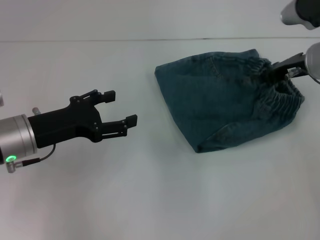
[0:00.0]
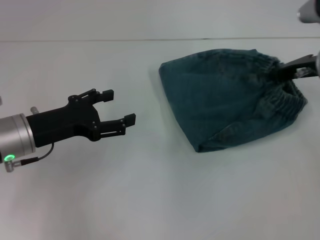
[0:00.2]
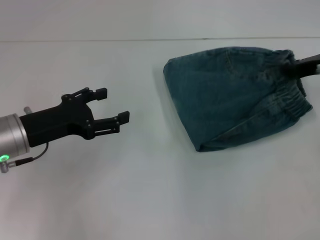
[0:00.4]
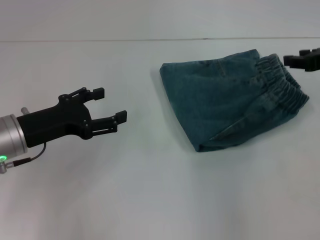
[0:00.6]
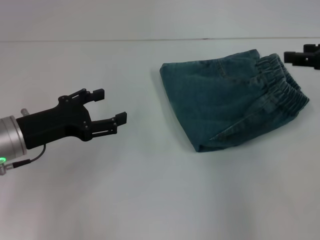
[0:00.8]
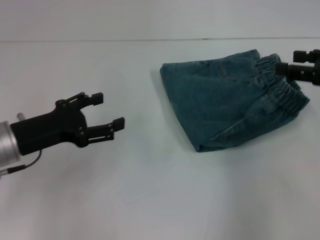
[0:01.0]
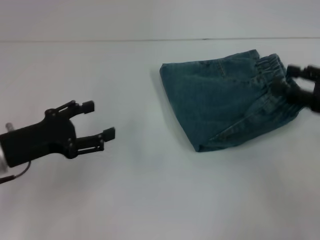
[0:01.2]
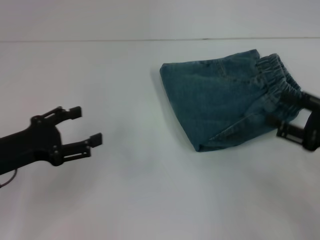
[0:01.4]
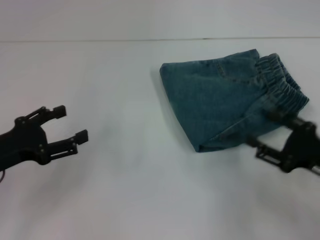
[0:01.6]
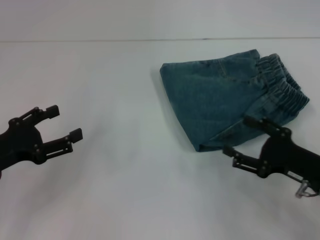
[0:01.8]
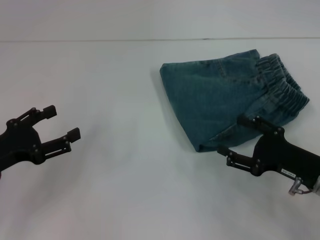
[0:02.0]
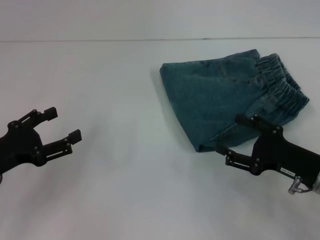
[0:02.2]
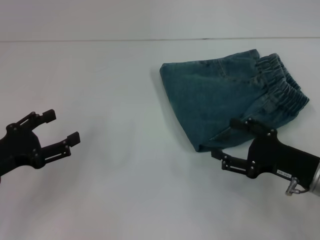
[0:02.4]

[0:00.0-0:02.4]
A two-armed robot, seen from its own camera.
0.0 to 1.2 s: The right gripper travels backward and to the right by roughly 15 cm, and opens up.
1.2 to 2.4 s: The left gripper changes place by roughly 5 cm; the right gripper goes about 15 cm downward and to the left.

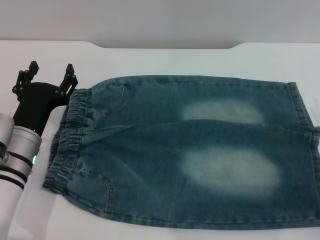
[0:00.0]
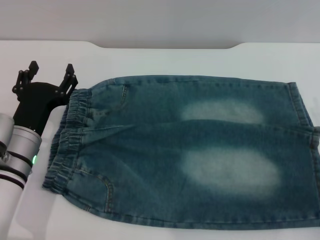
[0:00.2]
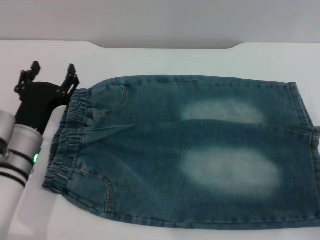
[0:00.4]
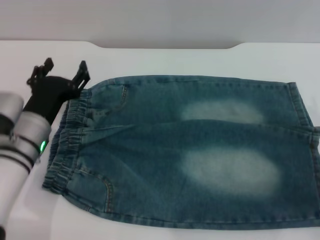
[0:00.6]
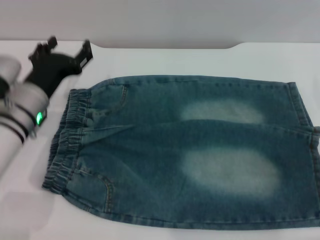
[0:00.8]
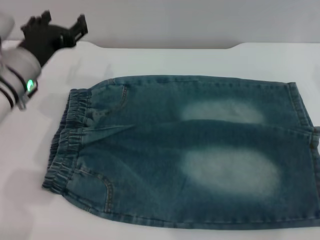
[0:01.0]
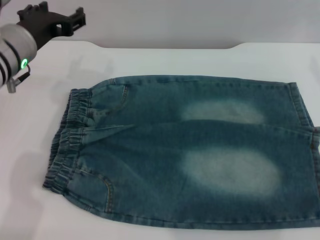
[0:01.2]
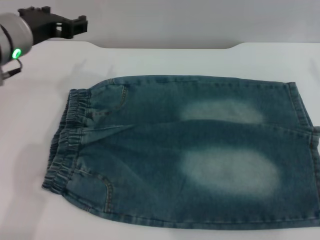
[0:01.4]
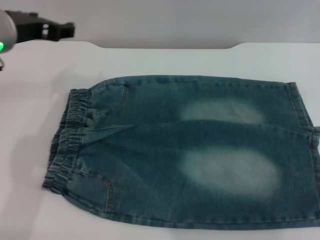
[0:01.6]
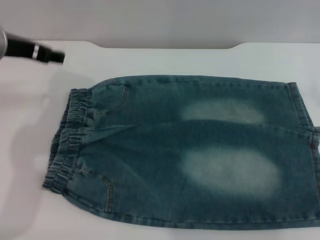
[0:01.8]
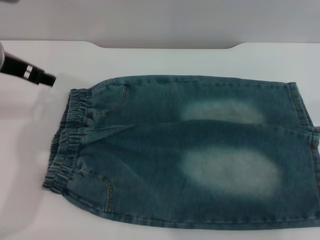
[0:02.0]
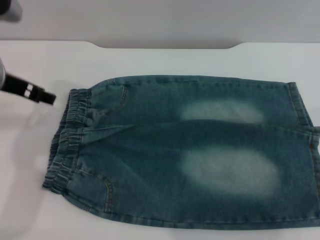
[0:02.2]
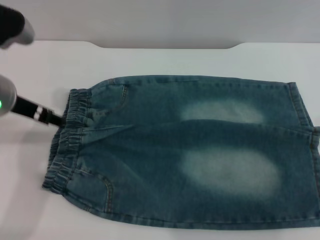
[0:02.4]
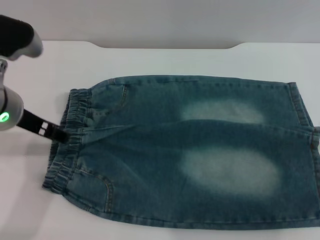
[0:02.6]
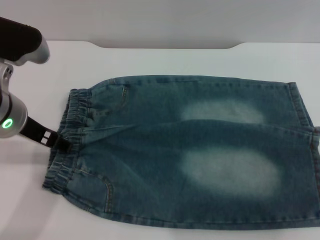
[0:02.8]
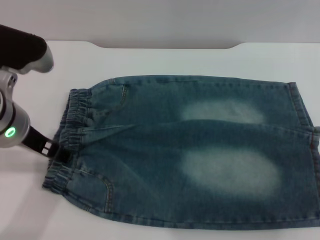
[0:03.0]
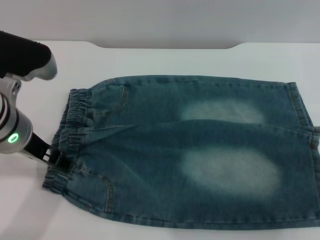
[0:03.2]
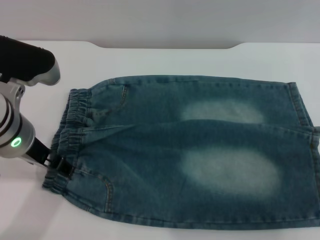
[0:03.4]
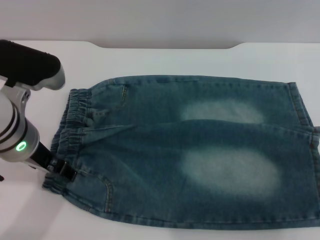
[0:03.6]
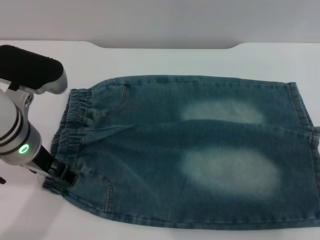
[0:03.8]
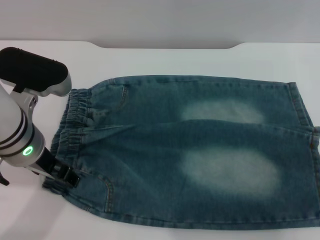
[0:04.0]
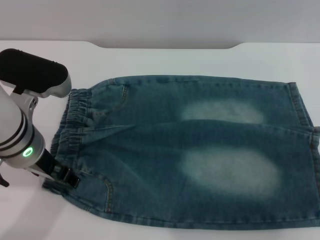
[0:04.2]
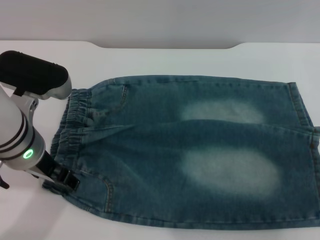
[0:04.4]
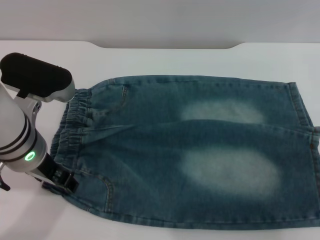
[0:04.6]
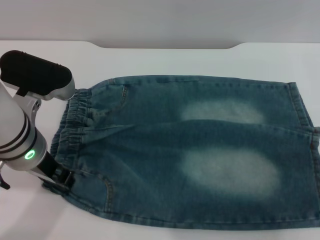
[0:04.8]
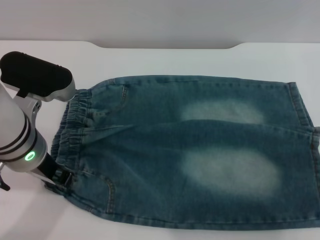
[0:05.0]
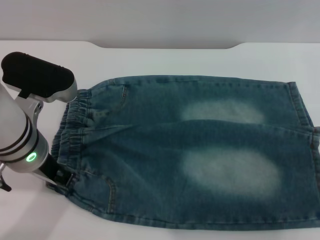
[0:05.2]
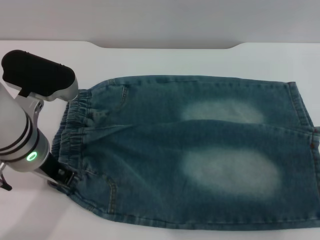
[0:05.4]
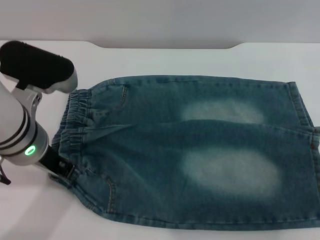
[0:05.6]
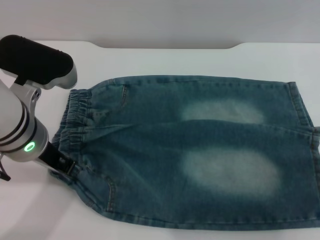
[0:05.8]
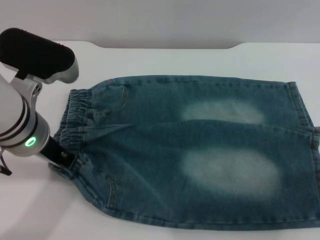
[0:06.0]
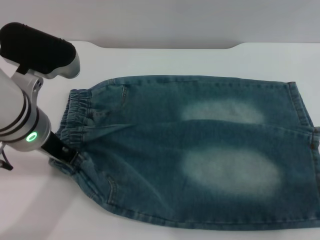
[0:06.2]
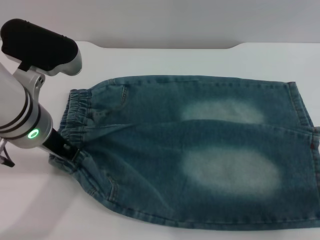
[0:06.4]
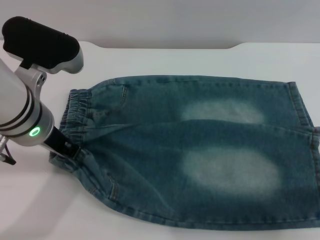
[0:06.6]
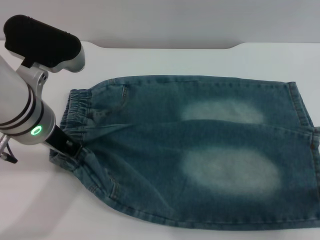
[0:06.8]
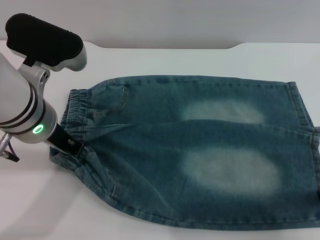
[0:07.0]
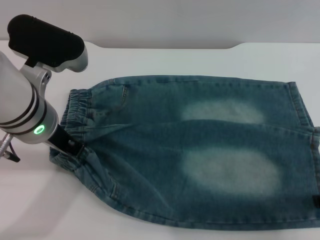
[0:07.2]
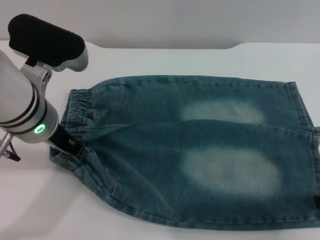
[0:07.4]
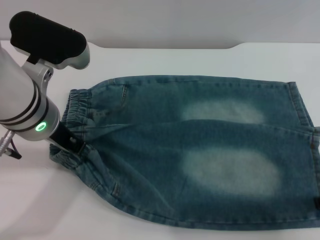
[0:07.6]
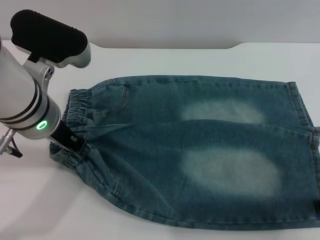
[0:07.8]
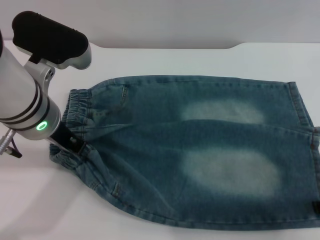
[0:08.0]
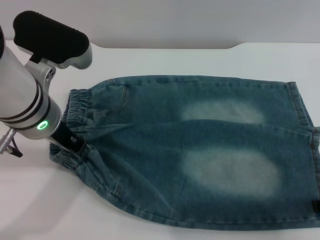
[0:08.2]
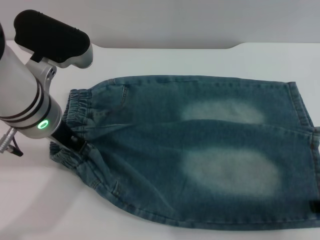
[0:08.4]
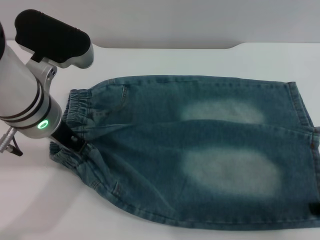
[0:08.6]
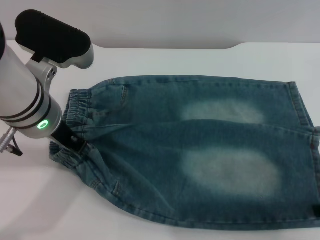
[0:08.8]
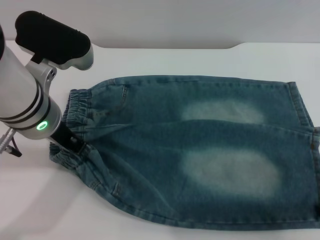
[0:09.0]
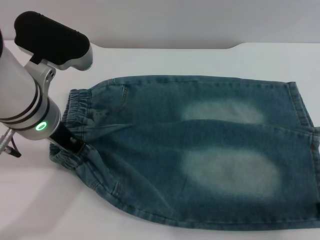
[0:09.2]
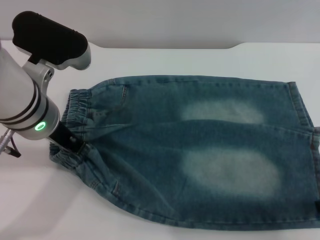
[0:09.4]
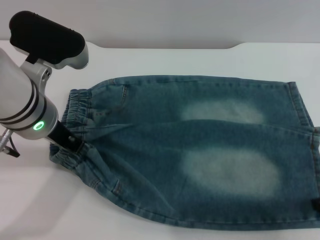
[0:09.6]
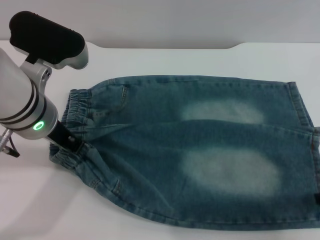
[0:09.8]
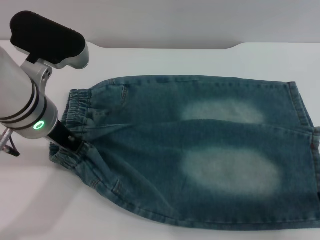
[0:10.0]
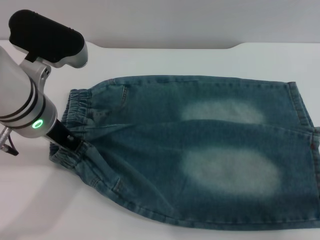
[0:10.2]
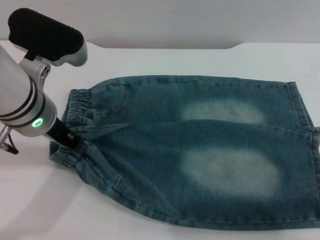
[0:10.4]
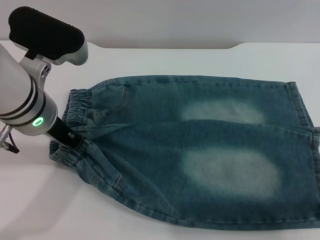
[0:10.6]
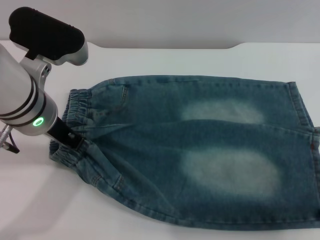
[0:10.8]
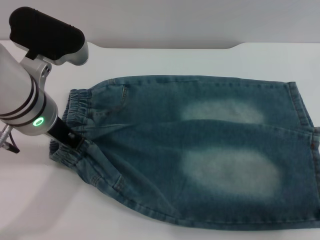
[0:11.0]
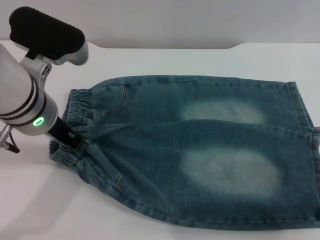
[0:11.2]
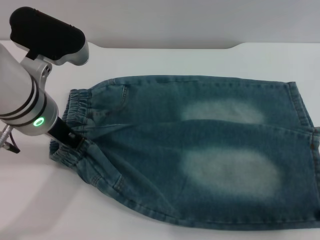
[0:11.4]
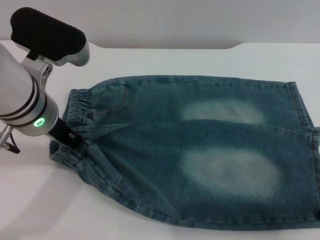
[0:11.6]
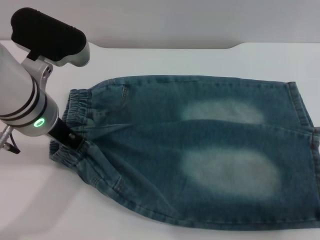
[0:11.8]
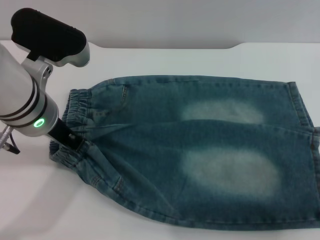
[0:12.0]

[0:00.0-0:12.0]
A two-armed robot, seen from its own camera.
0.0 to 1.6 s: The left gripper travels upward and forward by some 20 cm.
1.6 to 3.0 s: The left gripper shifts about 5 cm backward.
3.0 to 4.4 s: The grippers make only small movements.
4.4 to 6.0 s: The left gripper closes.
6.0 to 9.0 s: The grippers stay close to where they were, moving slightly.
9.0 to 10.4 s: The right gripper closes, then reopens.
10.4 to 12.0 s: There are only small adjustments of the grippers.

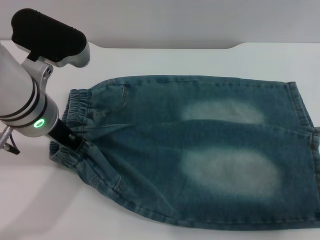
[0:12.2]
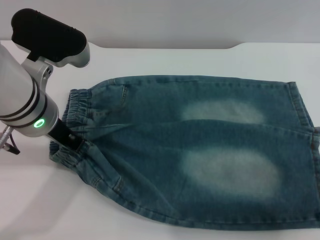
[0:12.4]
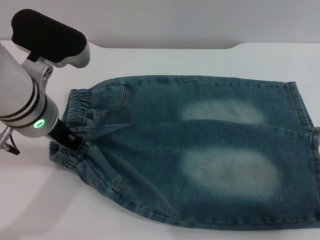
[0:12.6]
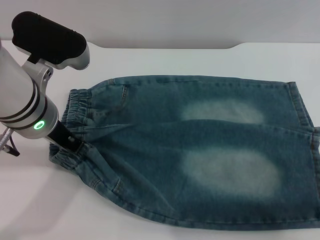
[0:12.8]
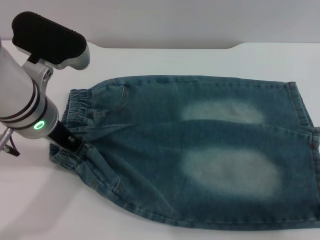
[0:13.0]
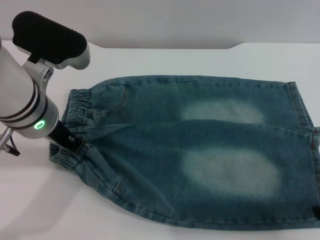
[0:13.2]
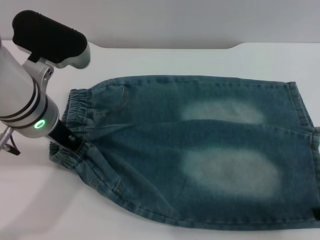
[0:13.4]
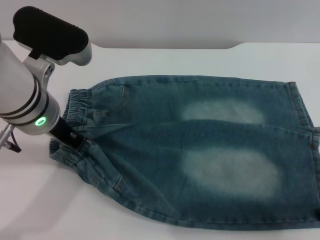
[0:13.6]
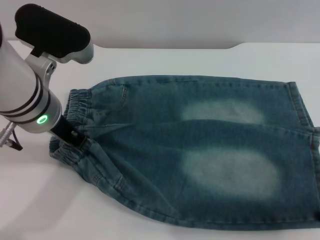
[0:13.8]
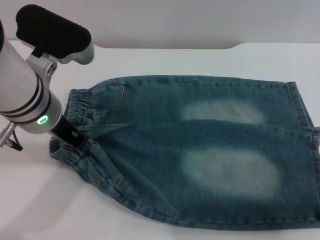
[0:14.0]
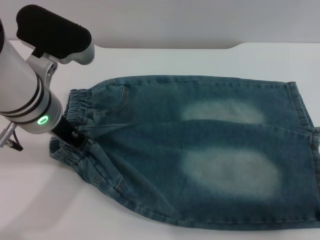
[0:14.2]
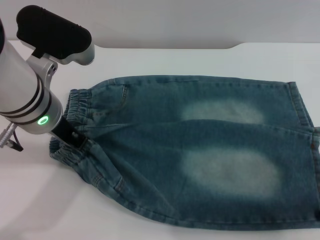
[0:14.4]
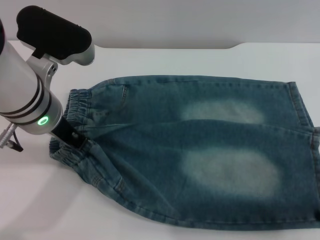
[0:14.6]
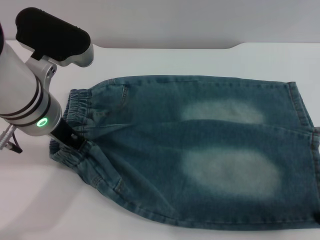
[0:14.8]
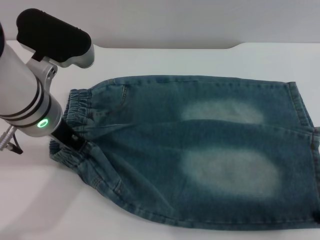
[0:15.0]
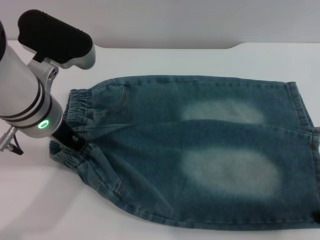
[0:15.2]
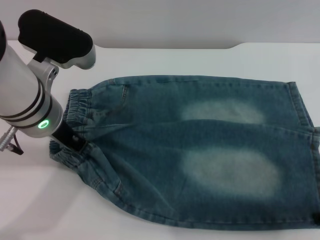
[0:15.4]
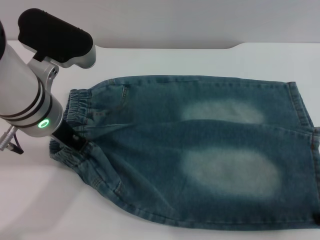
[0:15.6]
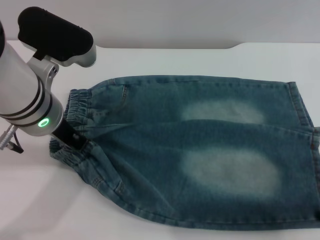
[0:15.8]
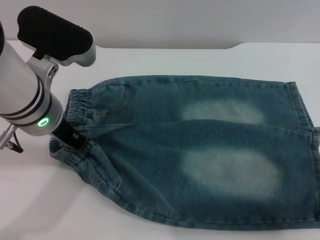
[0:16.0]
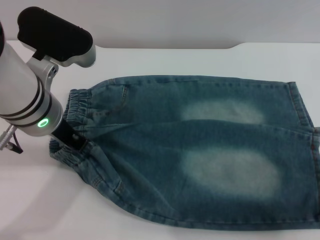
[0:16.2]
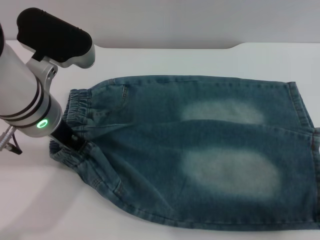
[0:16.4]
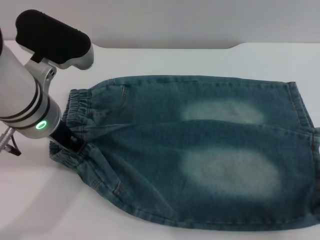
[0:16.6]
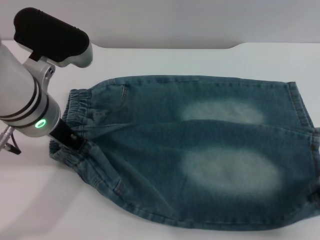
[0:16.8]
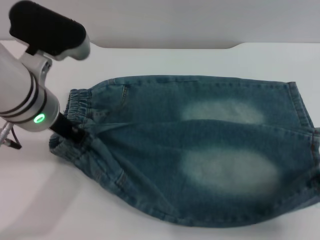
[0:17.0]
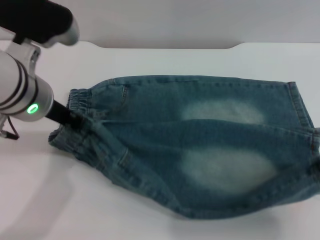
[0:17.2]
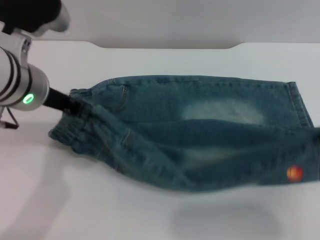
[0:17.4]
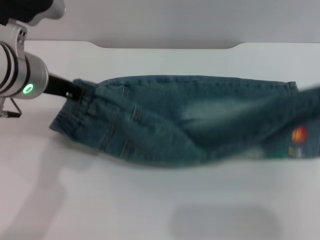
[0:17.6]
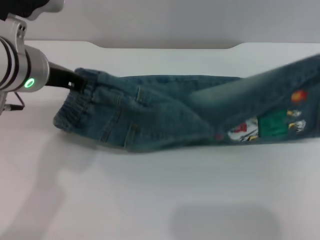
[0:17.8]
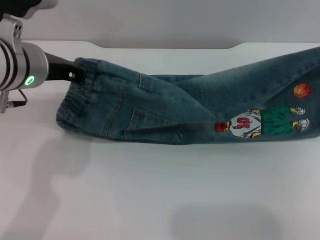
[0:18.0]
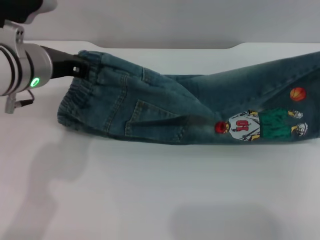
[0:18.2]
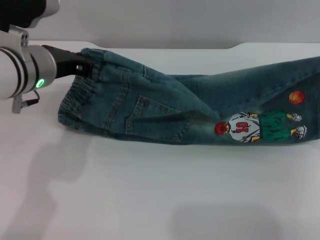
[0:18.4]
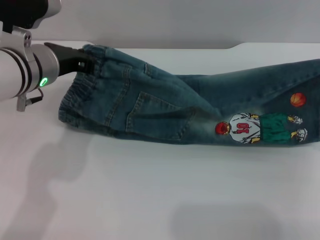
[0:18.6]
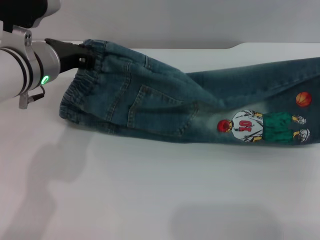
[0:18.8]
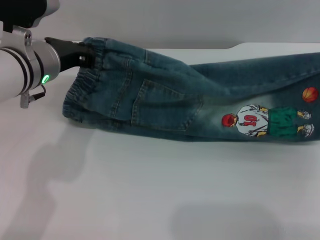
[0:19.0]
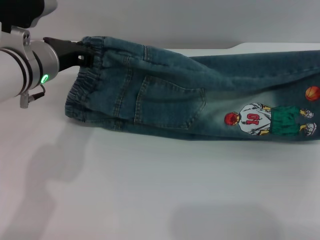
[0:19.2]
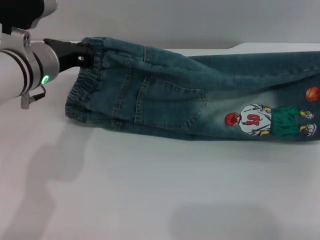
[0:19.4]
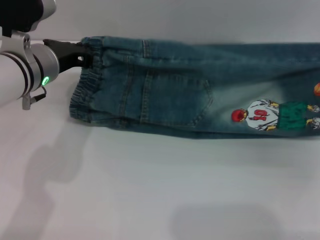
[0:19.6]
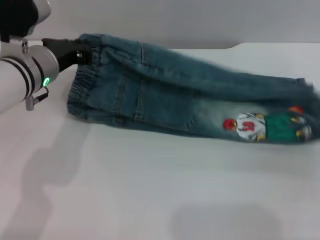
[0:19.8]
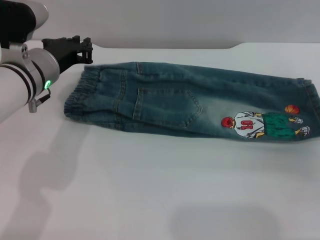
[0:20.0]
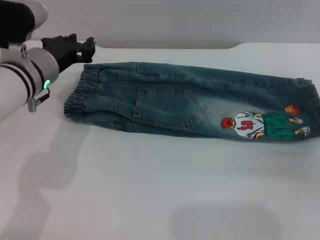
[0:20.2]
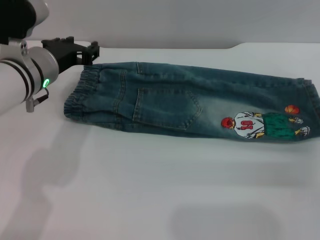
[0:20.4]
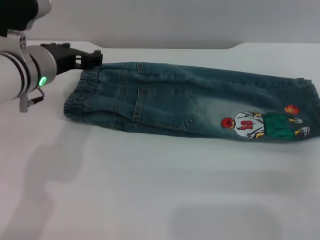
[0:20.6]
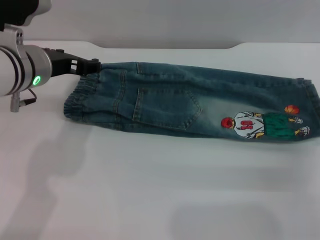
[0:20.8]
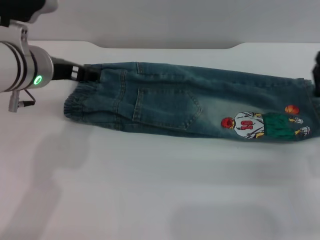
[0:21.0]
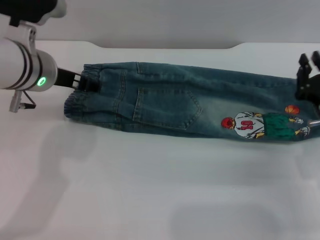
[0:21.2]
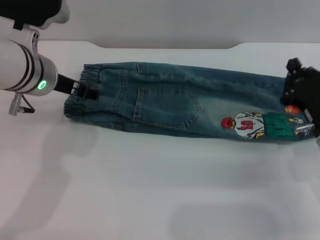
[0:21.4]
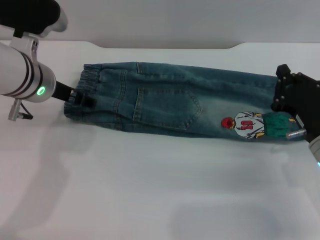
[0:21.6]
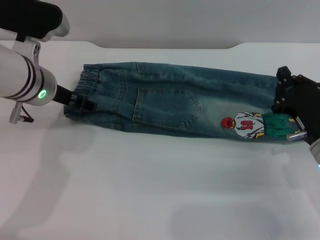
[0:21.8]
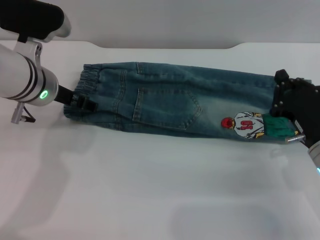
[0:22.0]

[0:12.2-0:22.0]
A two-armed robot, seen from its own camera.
Step, 12.2 to 20.4 s: Fold the bottom of the pants upward with both grippers.
13.6 to 15.0 s: The two grippers keep their place.
16.4 to 17.8 s: The right gripper shifts approximately 10 cm upward and forward.
17.8 to 19.2 s: The left gripper moves about 5 cm. The right gripper heads downward, covering some 10 cm.
19.2 to 20.6 s: The right gripper heads downward, covering some 5 cm, and opens its fingers, while the left gripper opens.
20.6 to 22.0 s: The right gripper moves to the left, some 5 cm, and closes up.
